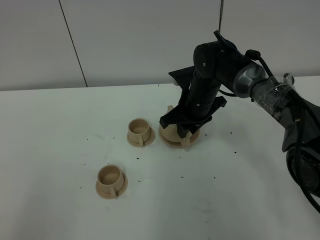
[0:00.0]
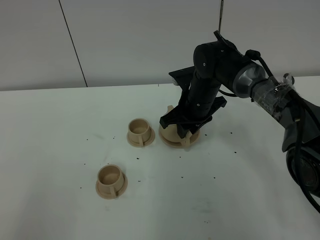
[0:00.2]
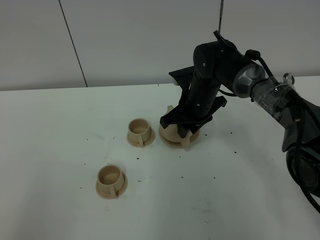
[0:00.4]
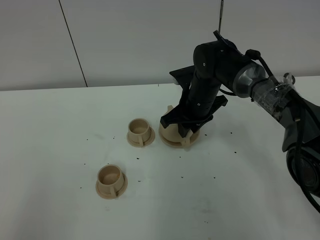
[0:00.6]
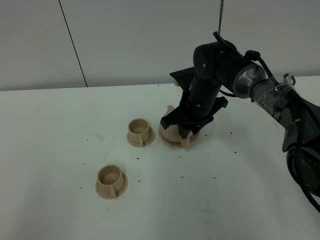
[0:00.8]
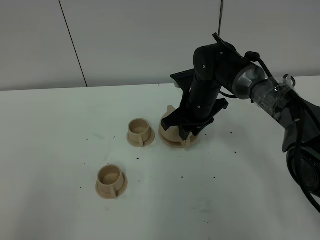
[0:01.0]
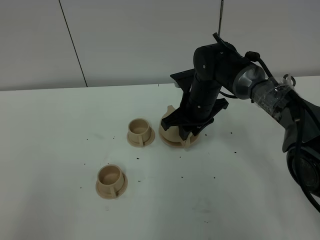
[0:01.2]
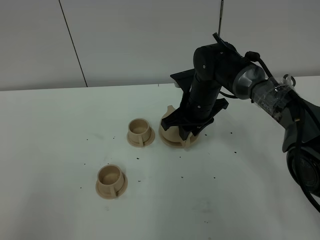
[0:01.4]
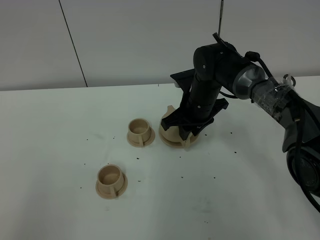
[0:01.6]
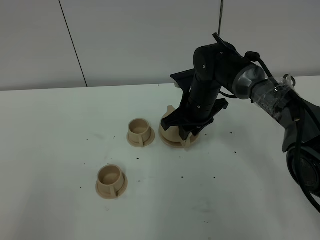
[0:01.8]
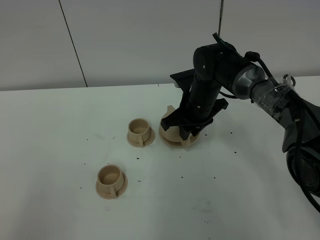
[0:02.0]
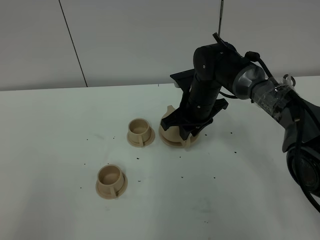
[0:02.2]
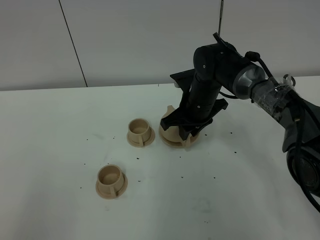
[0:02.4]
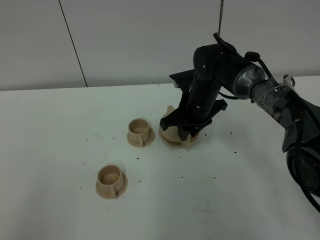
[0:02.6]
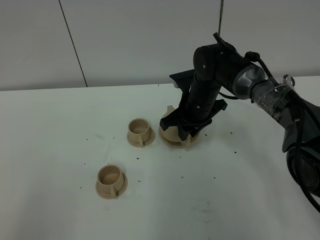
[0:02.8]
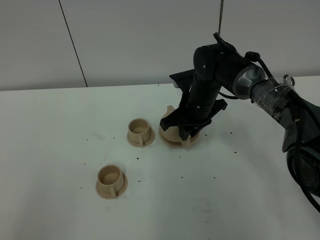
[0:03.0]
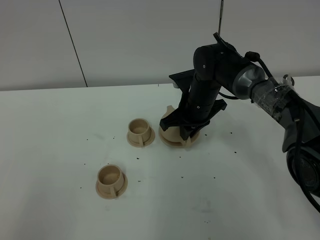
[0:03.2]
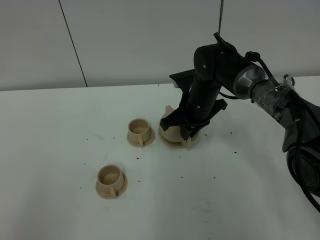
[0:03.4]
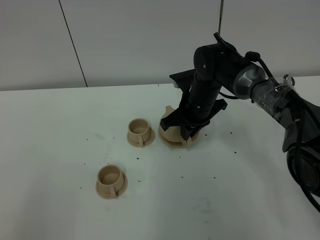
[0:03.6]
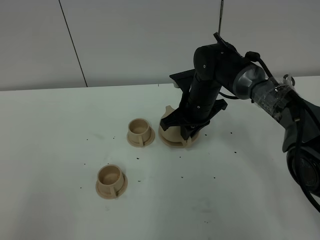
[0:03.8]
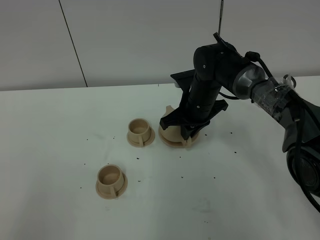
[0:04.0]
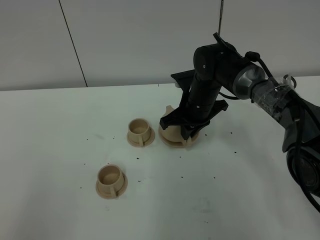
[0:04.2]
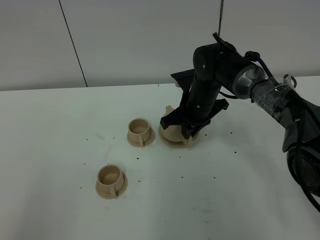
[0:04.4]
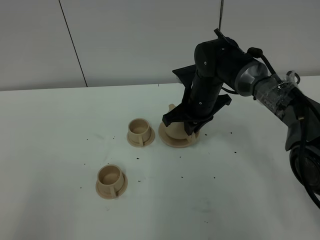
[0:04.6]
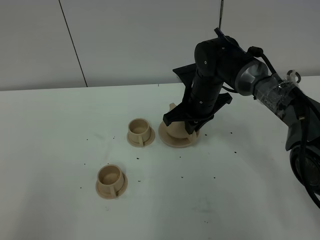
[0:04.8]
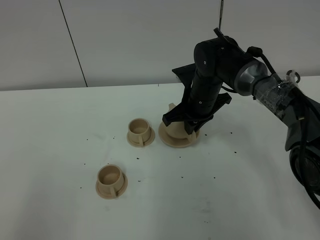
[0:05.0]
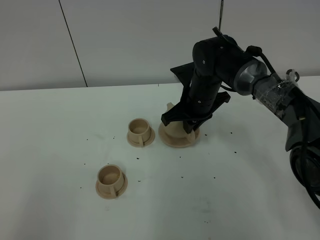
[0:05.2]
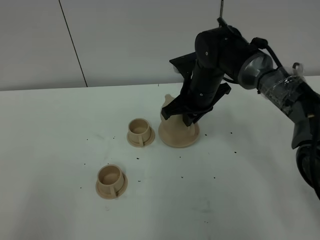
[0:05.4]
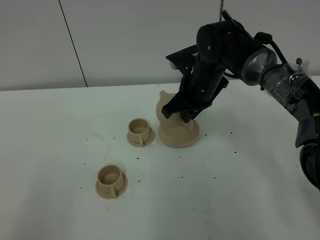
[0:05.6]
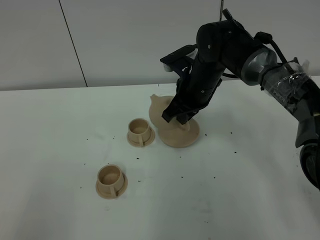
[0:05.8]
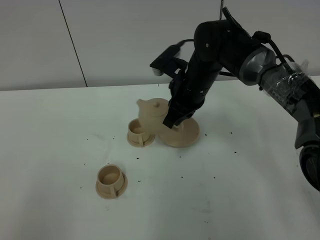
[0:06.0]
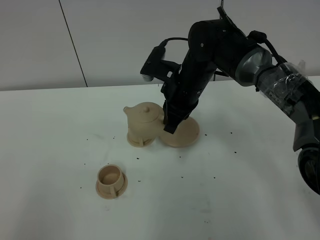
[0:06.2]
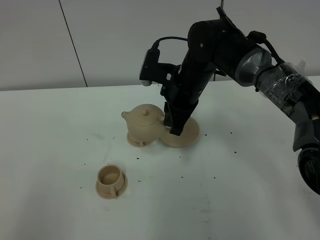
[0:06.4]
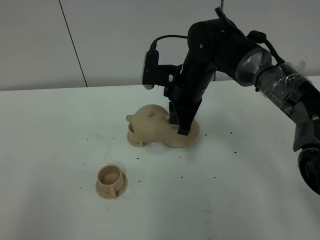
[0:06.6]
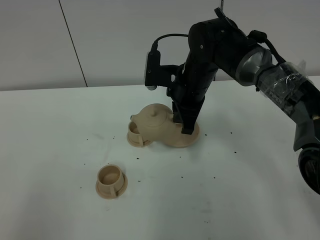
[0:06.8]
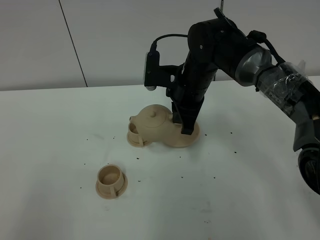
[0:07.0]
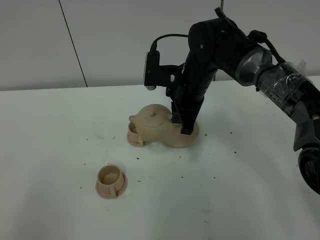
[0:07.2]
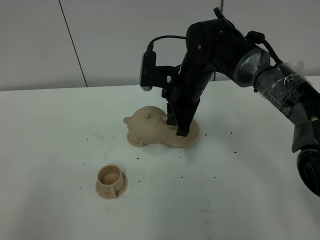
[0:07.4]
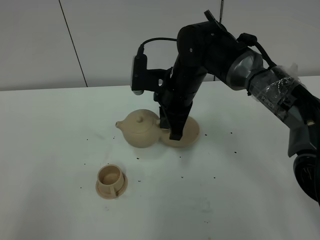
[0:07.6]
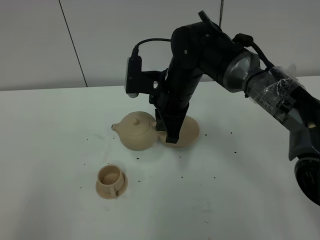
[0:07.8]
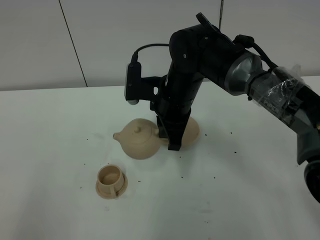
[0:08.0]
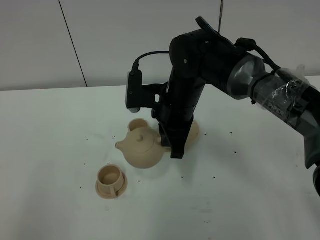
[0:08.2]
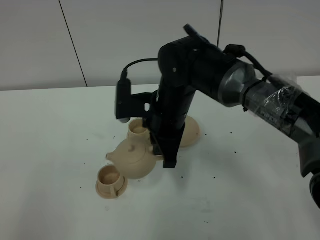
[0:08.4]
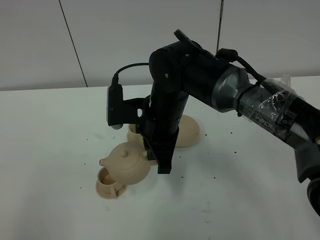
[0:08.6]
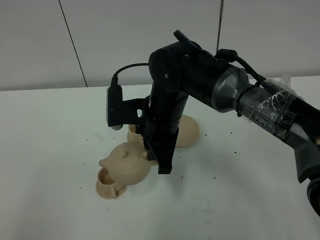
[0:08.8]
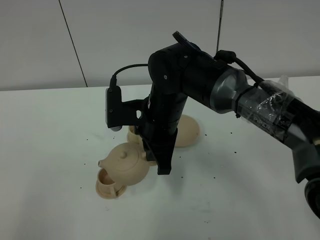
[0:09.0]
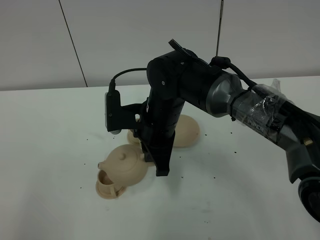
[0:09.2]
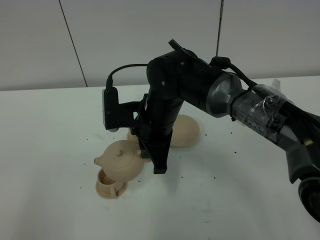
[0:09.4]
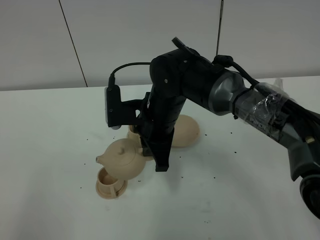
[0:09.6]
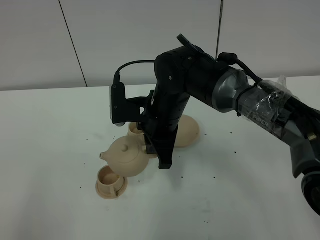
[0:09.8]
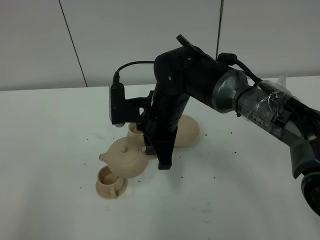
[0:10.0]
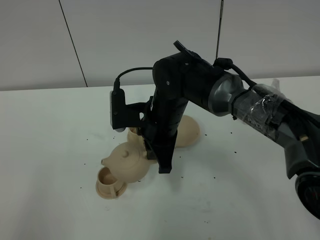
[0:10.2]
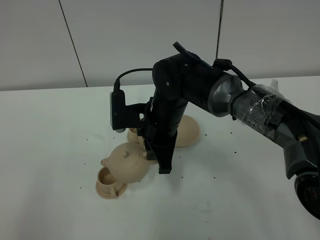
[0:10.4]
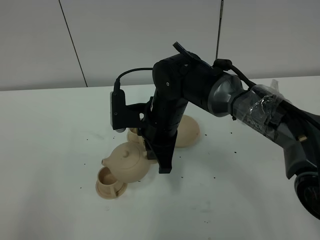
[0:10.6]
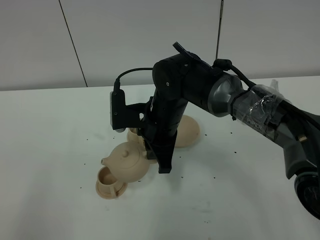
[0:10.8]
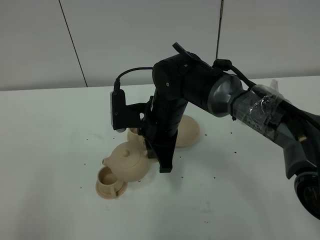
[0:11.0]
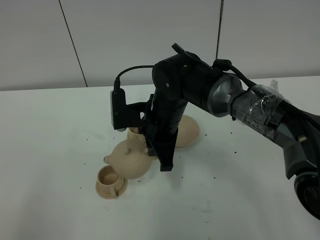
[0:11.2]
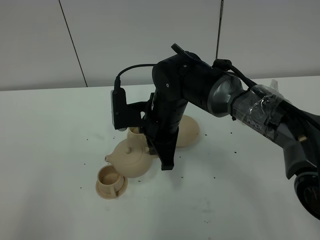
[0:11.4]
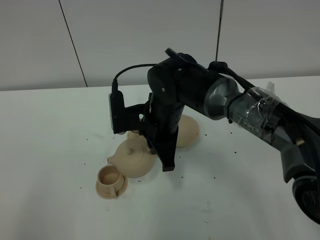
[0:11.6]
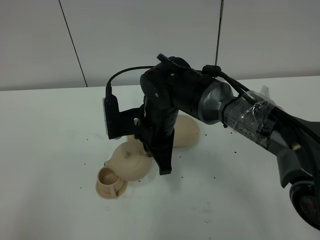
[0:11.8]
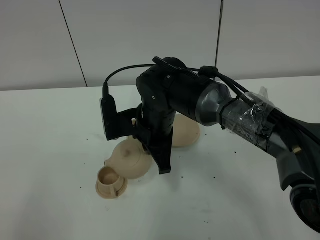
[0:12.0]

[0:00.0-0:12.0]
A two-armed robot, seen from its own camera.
Task of the whole recording: grasp the brown teapot and pour the tea into the two brown teacups one by one, put the brown teapot back in its original place.
Step, 0:00.0 to 0:04.6: Pick up the teapot with the right gripper.
0:00.0 to 0:04.4: Both grippers stay put.
0:04.4 to 0:06.0: The right gripper goes some 5 cm upward.
0:07.6 to 0:09.0: The right gripper travels backward by roughly 5 cm.
0:09.0 to 0:12.0: The grippers stay close to where they were, moving slightly.

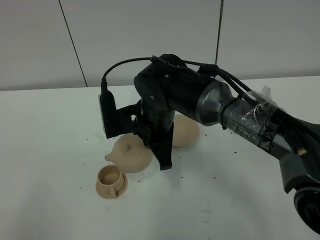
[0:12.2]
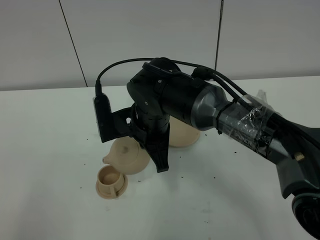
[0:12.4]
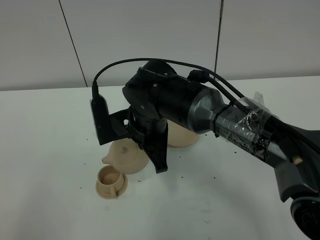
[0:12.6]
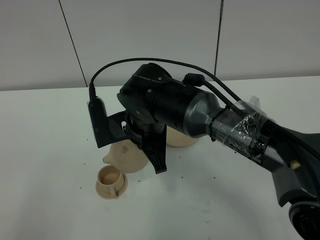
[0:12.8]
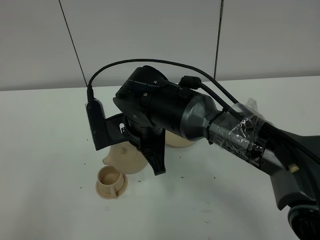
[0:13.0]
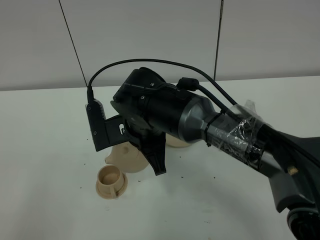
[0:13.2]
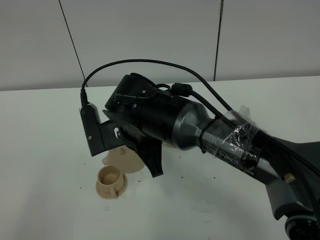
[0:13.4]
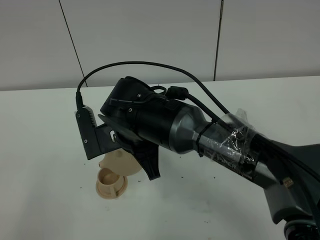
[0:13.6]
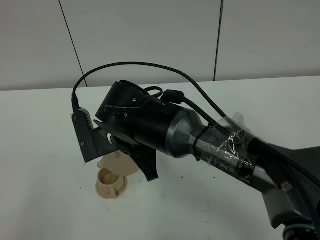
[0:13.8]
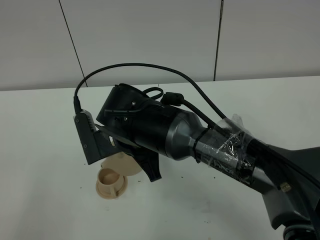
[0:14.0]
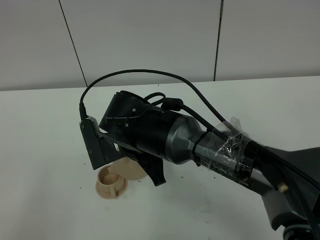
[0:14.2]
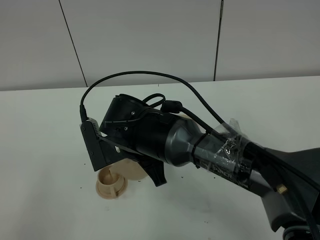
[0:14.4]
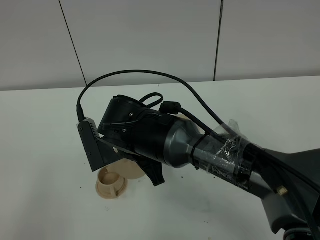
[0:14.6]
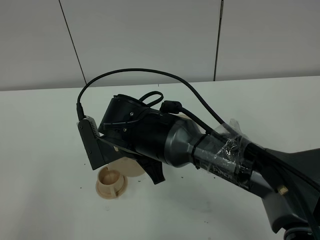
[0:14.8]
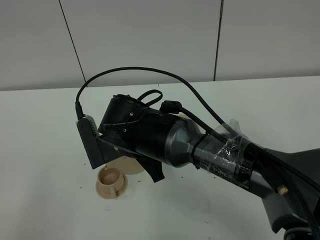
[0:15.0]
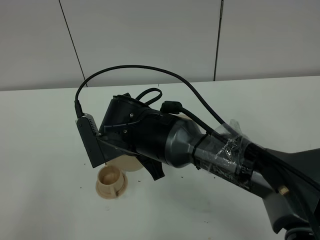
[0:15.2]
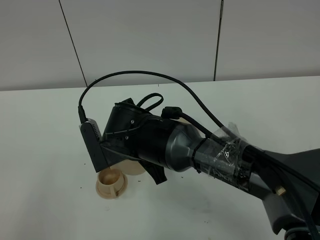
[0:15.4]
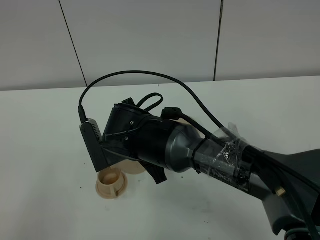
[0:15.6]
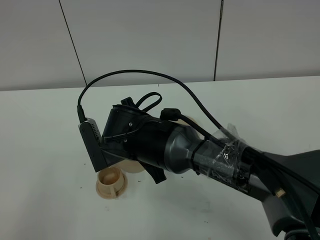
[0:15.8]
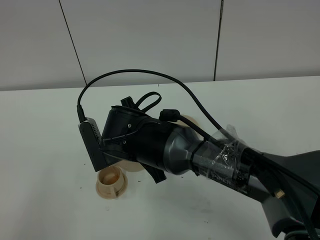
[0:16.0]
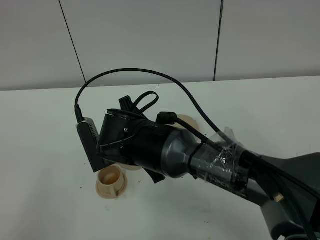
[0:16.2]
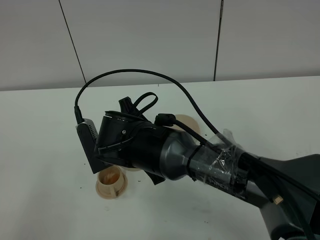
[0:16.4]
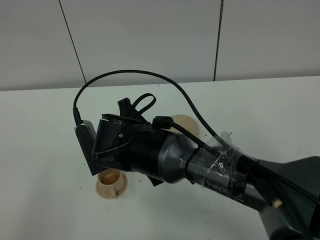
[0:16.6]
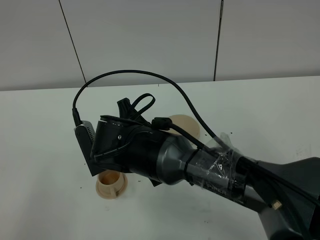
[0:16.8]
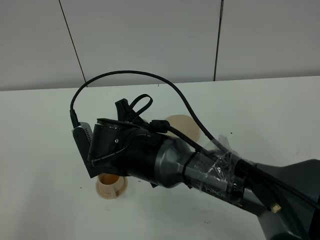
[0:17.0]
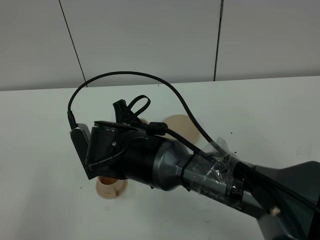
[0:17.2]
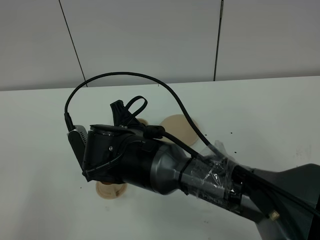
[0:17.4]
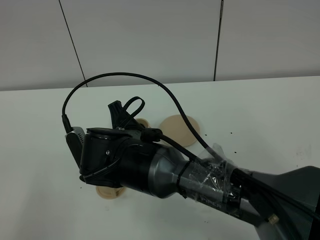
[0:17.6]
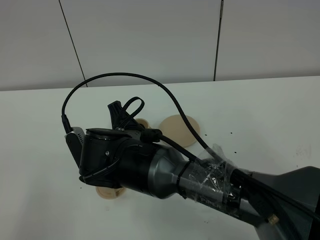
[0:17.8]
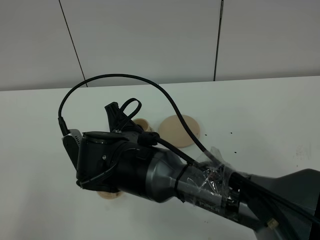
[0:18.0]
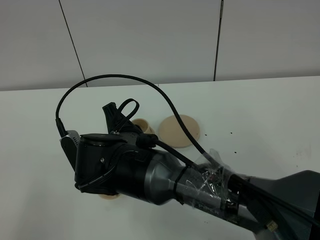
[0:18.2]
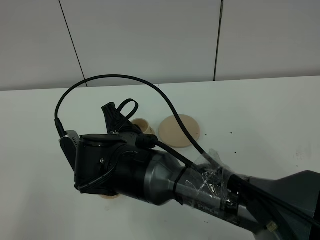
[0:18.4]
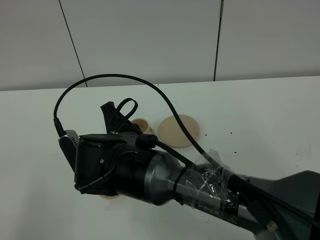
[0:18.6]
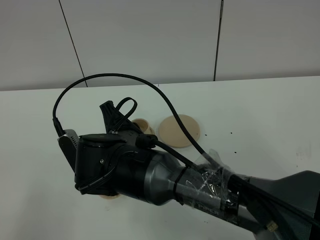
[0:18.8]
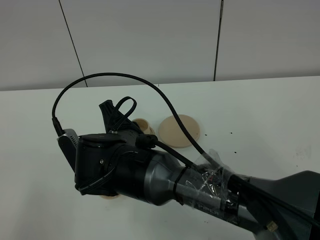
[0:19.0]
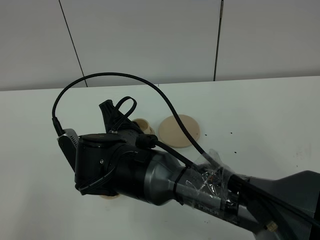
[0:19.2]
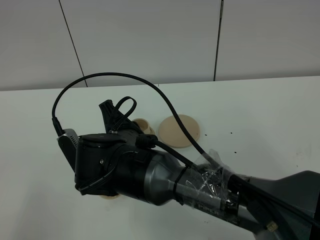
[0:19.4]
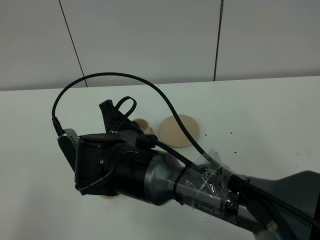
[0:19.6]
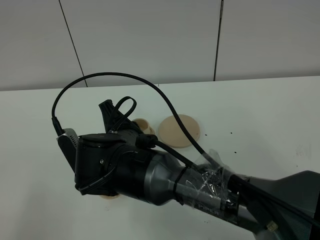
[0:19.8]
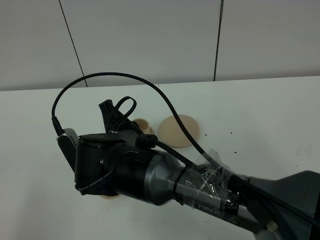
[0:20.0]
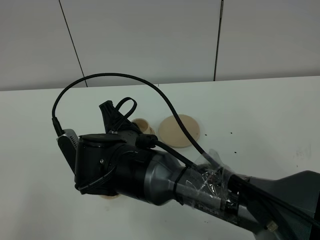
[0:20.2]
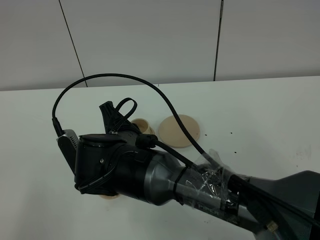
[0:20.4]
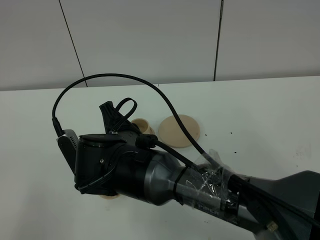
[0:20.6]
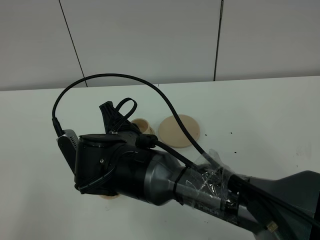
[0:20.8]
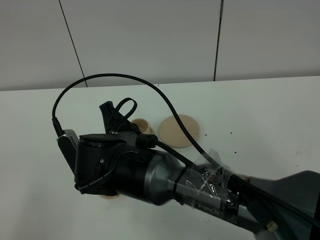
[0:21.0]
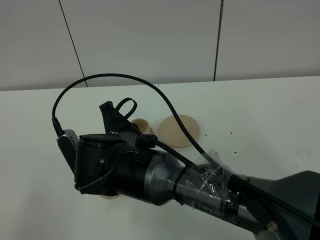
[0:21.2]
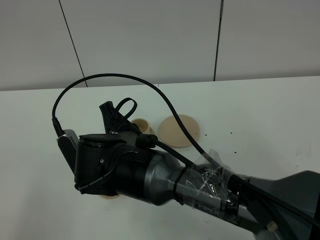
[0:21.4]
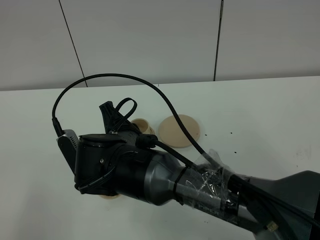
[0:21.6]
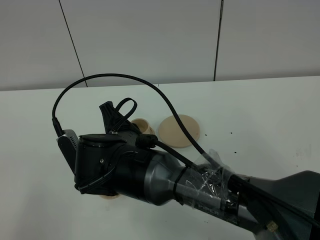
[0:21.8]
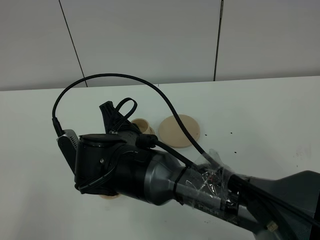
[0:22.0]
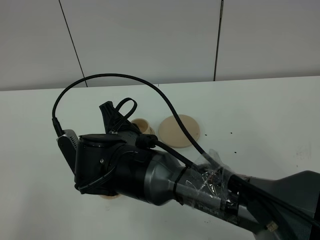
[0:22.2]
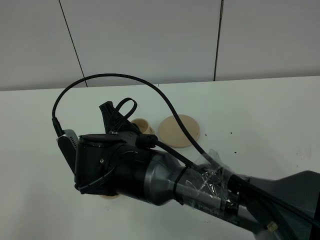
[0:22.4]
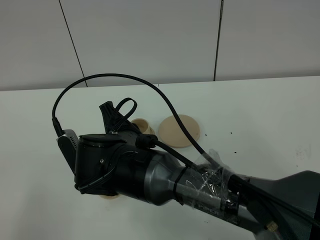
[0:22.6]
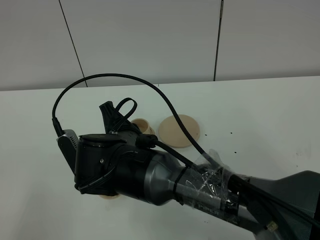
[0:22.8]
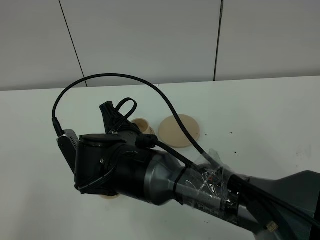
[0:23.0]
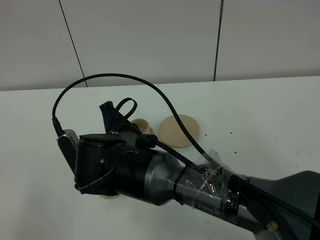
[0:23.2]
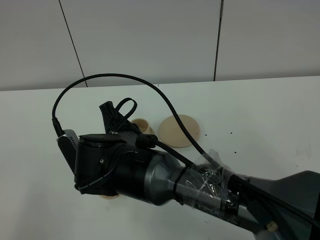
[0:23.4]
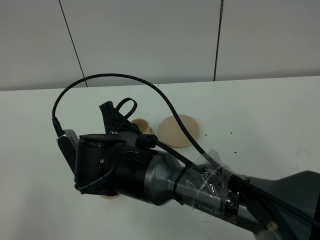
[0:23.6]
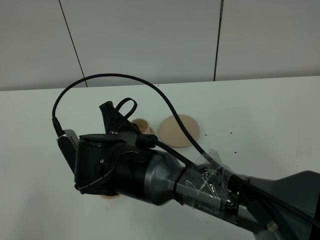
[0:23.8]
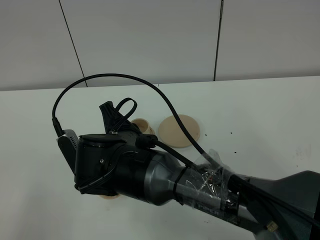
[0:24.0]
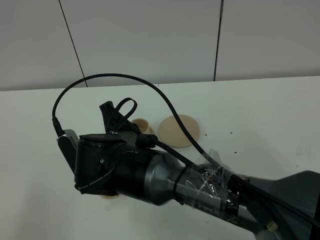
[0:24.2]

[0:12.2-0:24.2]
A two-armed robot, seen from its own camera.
Task of the whole recording: grasp the brown teapot and pour the tea into the two brown teacups one by one, put the brown teapot back in its original place.
0:12.2 to 0:13.8: The right gripper shifts by roughly 5 cm.
0:13.8 to 0:18.2: The grippers make only small movements.
0:18.2 to 0:24.2: The two grippers keep their place.
